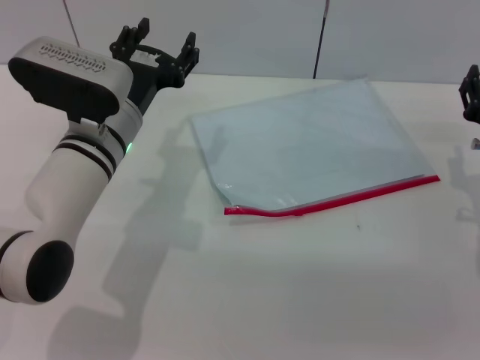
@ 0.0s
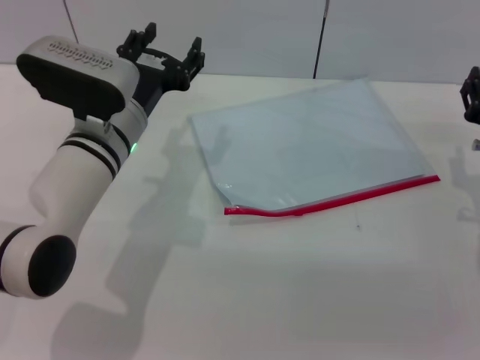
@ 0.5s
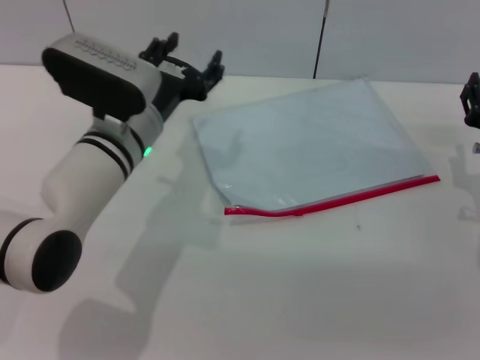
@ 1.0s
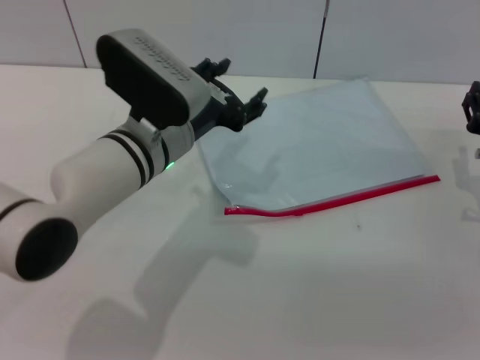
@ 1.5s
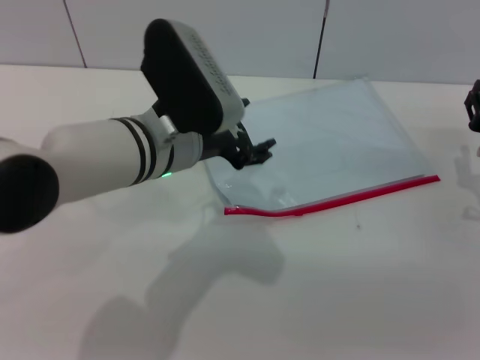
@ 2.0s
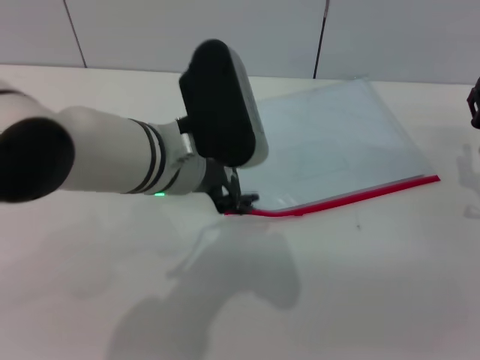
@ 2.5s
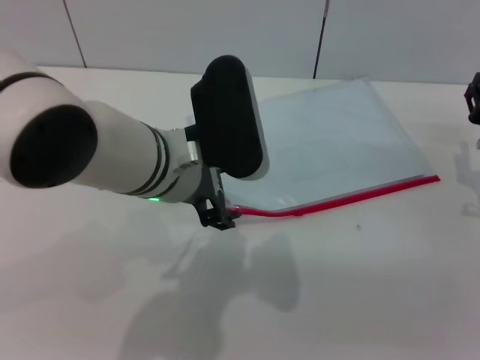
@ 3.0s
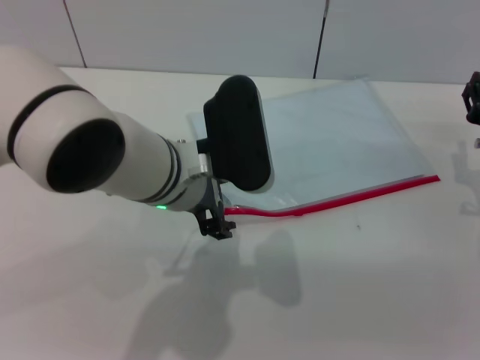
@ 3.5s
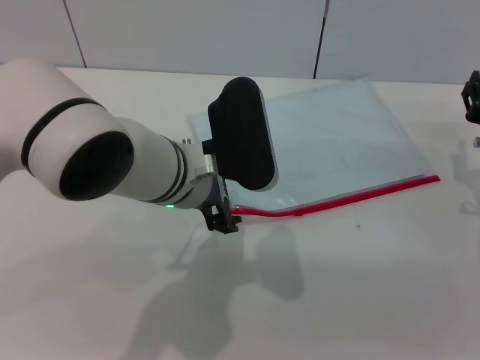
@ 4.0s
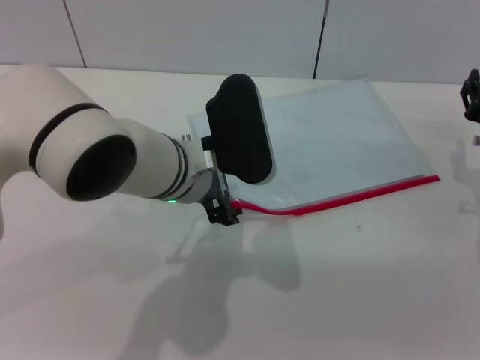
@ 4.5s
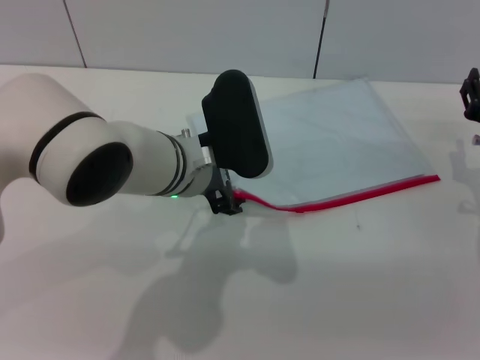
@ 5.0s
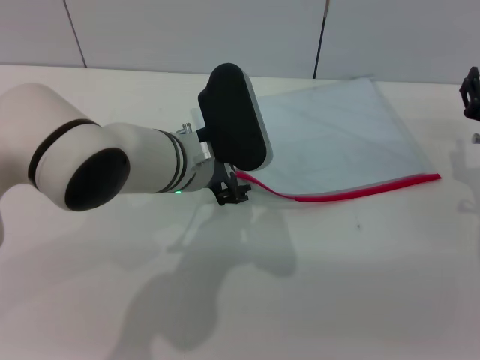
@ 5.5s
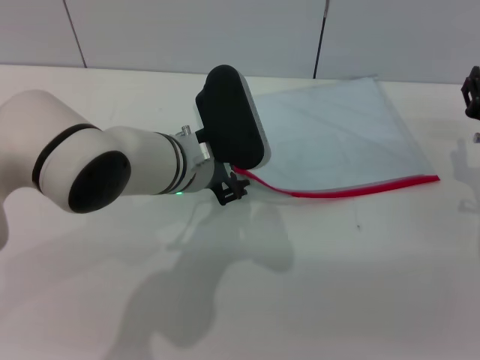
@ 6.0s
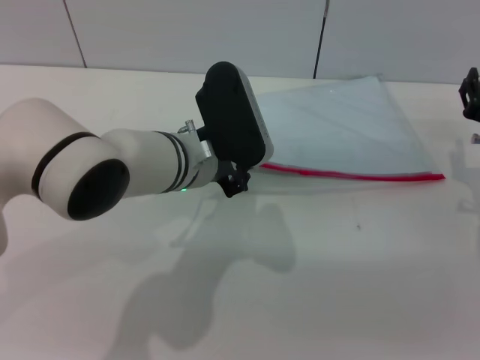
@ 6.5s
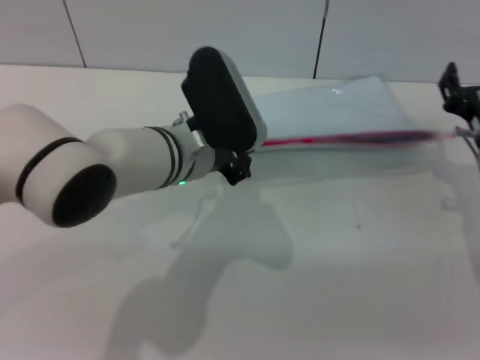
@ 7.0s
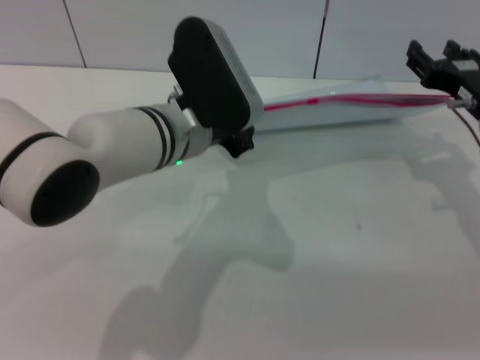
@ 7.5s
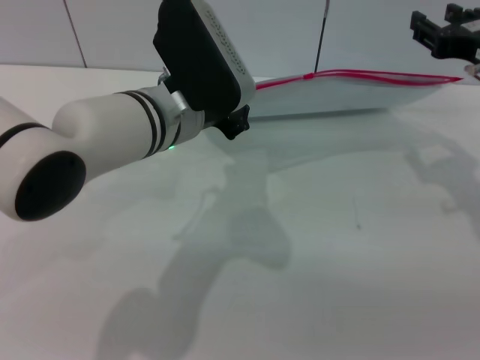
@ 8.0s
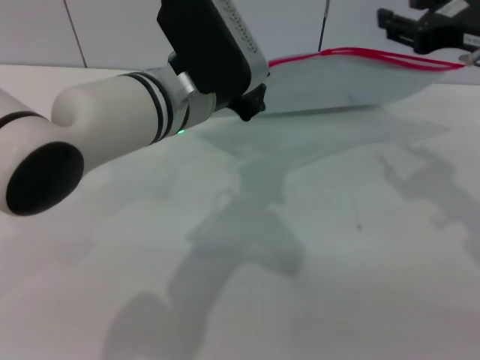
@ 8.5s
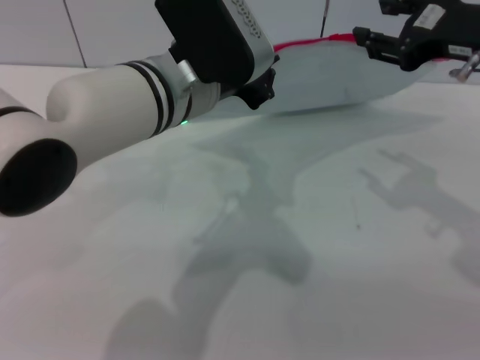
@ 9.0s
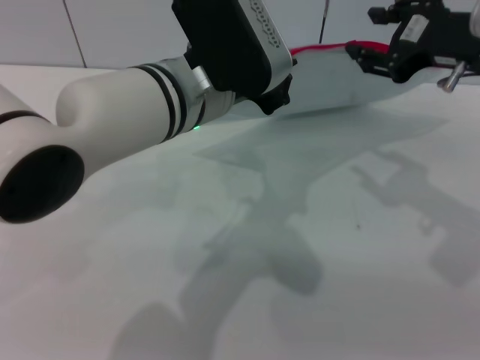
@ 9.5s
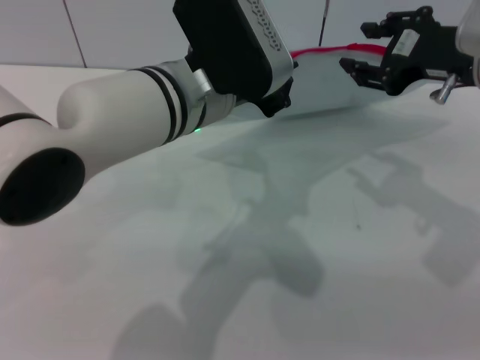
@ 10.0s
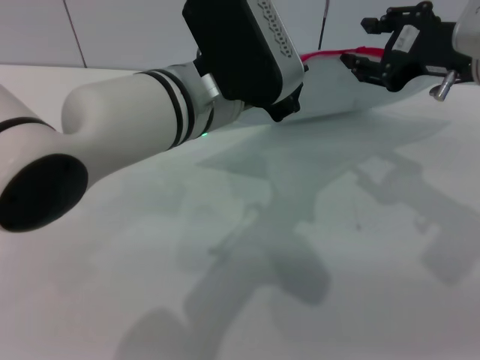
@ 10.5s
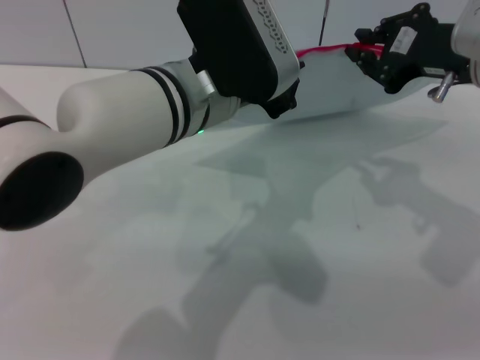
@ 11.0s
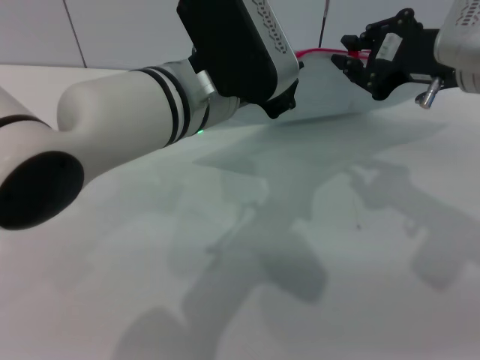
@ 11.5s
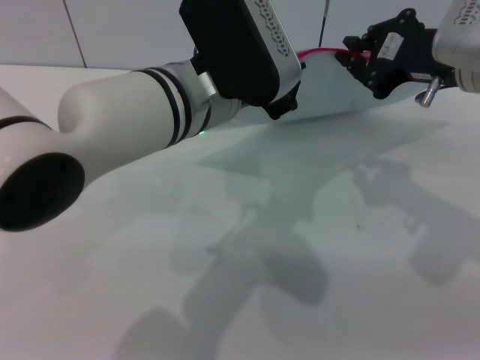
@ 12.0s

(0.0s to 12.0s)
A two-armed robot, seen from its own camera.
Step, 0.0s - 7.0s: Pick up the transparent plastic bag with the left gripper.
0.0s - 2.0s: The left gripper shifts approximately 5 cm to the right.
4.0s - 6.0s: There are only small adjustments of the grippers.
6.0s - 8.0s: The left gripper closes, while the right gripper shifts about 10 cm upward.
8.0s - 10.0s: The left gripper changes place by approximately 5 cm.
10.0s - 12.0s: The right gripper closes its fingers.

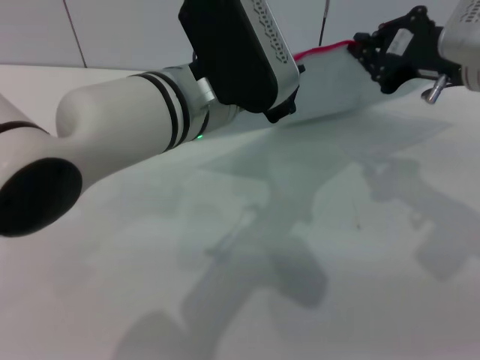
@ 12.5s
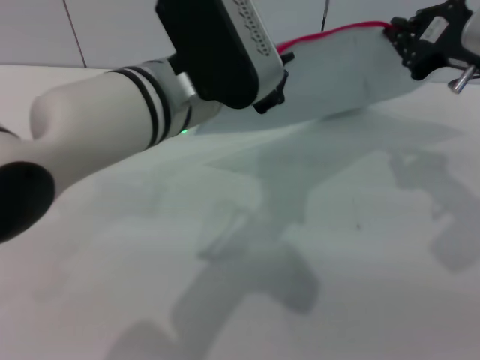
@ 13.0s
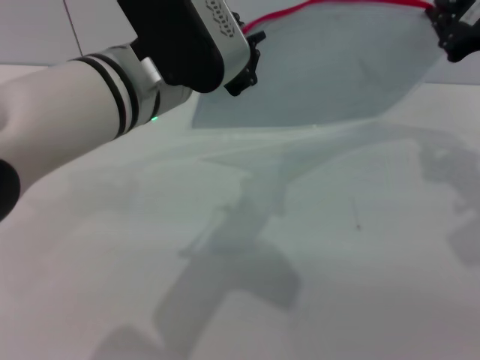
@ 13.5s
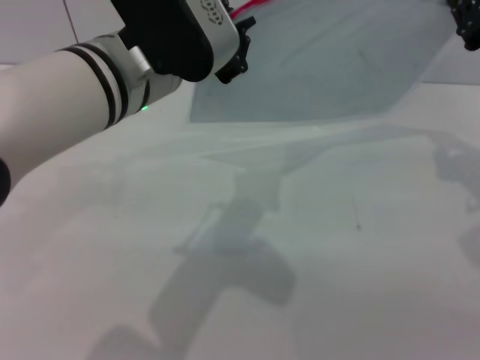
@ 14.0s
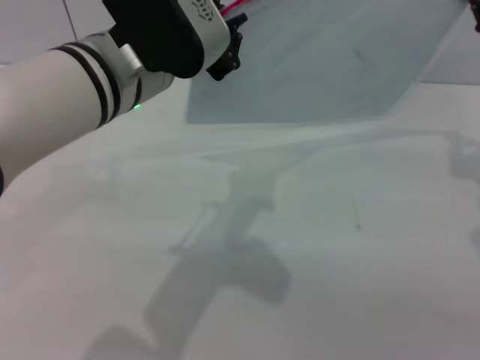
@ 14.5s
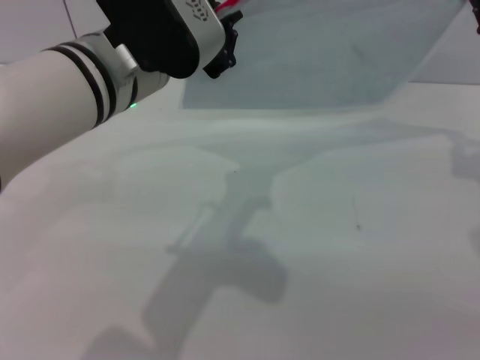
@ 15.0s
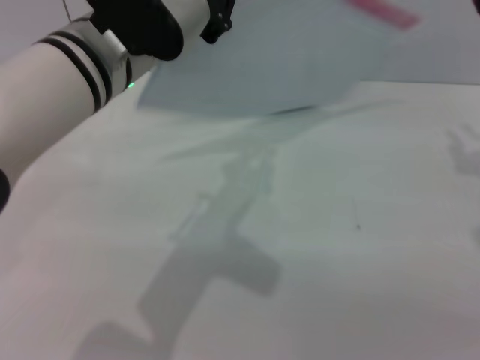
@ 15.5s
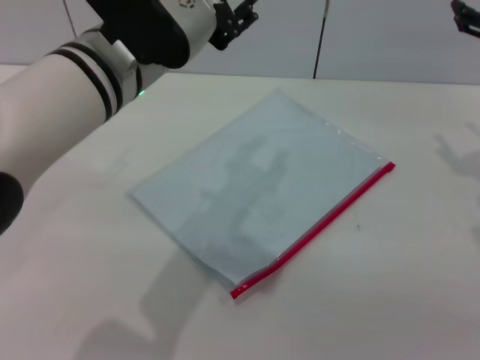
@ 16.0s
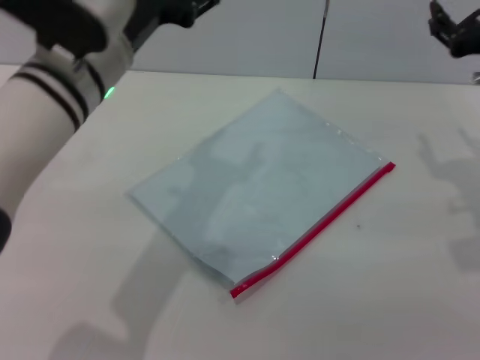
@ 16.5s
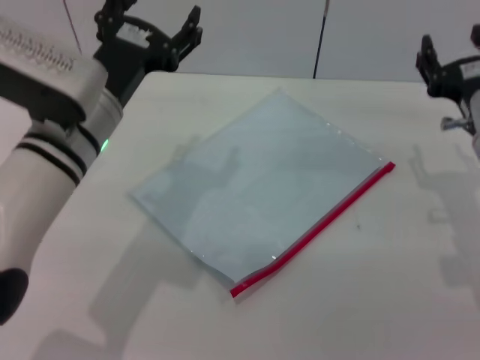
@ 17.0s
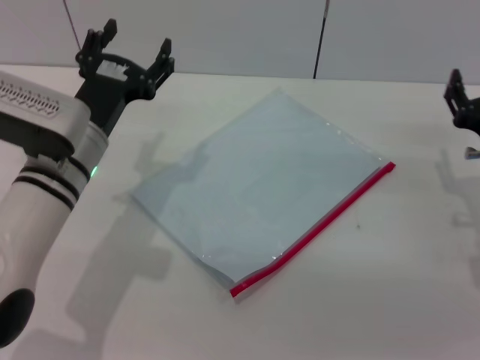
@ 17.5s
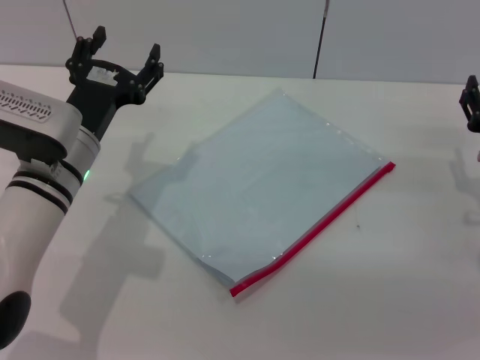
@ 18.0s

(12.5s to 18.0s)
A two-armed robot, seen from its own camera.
Step, 12.5s - 15.5s: Pulling up the zipper on the transparent plastic bag with the right gripper to close it.
Step, 16.5s - 17.0s: Place the transparent plastic bag.
12.5s - 14.5s: The right gripper moves to the right, roughly 5 cm; the left gripper moves some 5 cm.
14.5s - 16.0s: The right gripper opens its fingers, while the left gripper opens.
16.0s - 18.0s: The left gripper goes some 15 cm downward and to the left, and opens its fingers. The right gripper moves downward, approximately 15 cm.

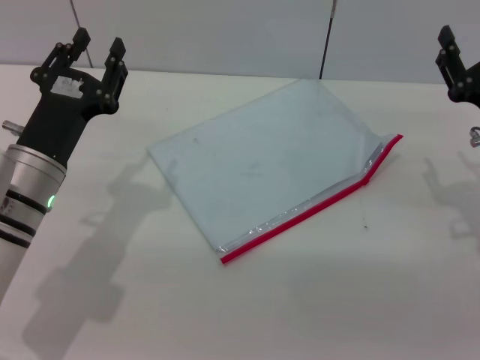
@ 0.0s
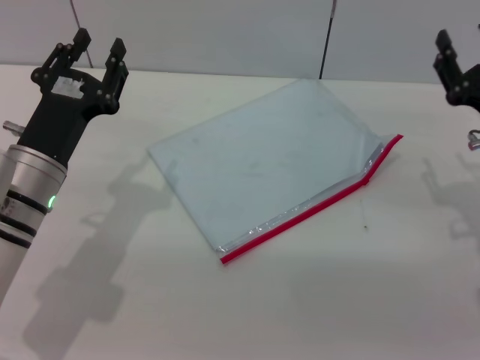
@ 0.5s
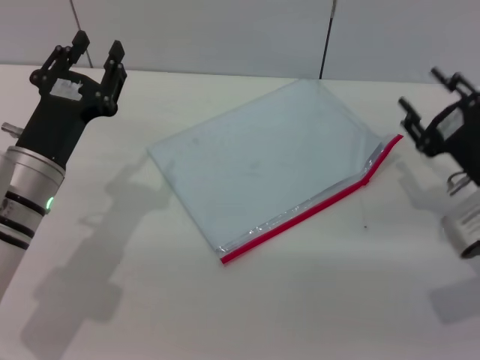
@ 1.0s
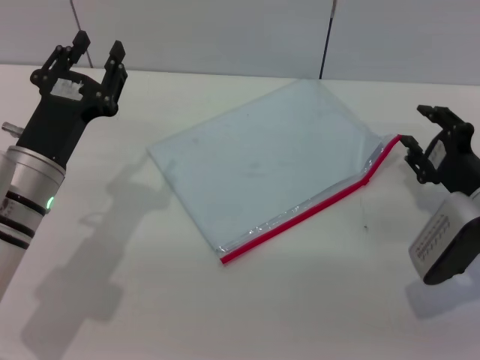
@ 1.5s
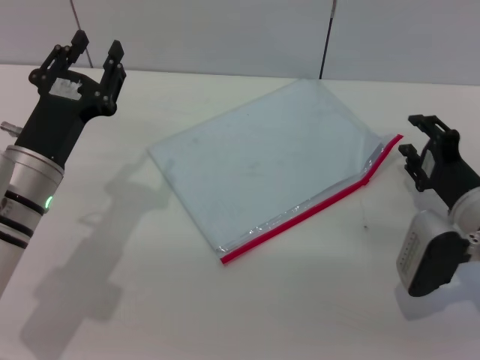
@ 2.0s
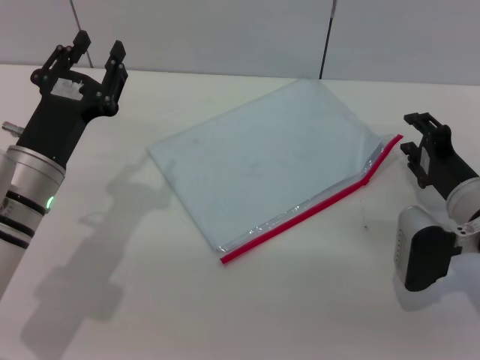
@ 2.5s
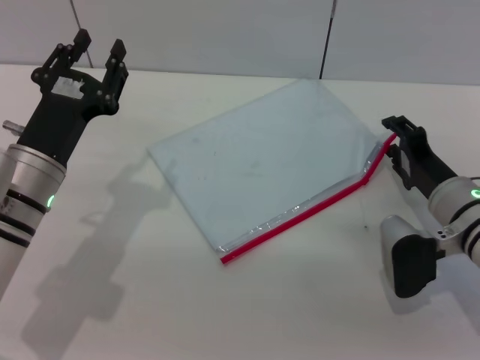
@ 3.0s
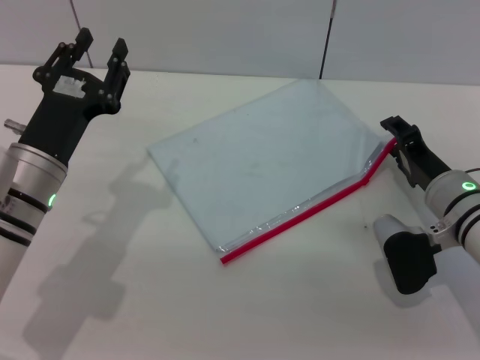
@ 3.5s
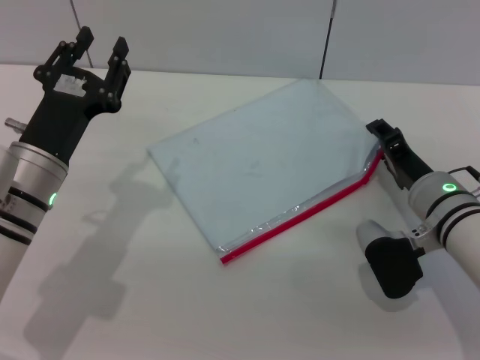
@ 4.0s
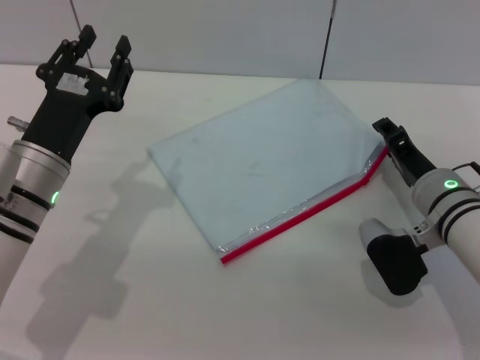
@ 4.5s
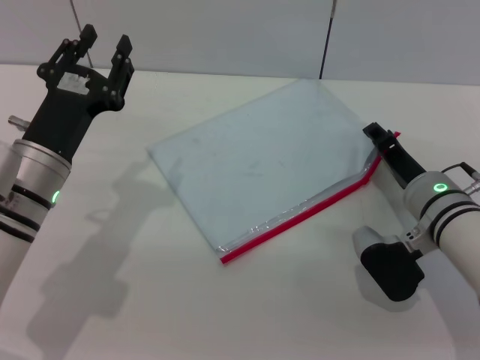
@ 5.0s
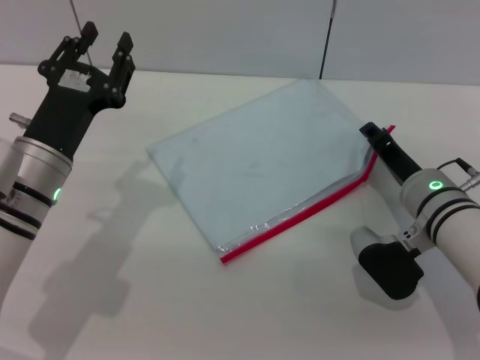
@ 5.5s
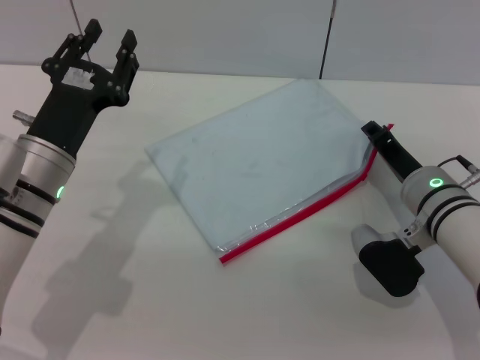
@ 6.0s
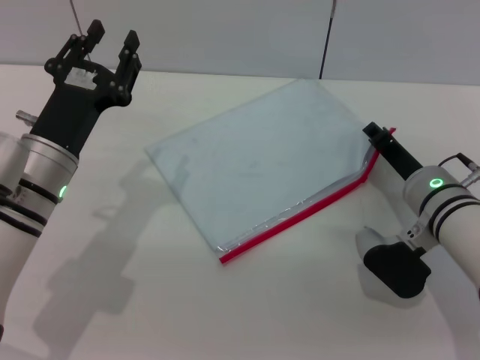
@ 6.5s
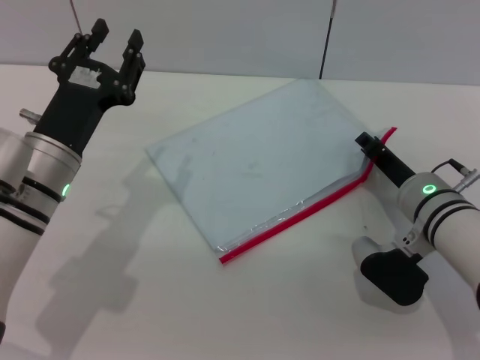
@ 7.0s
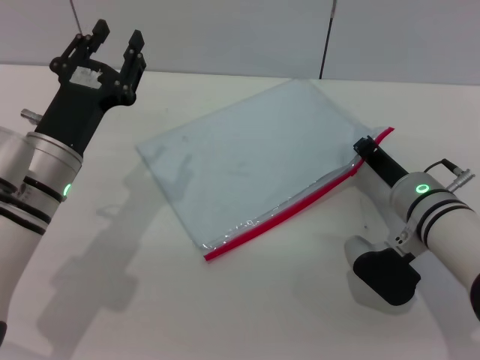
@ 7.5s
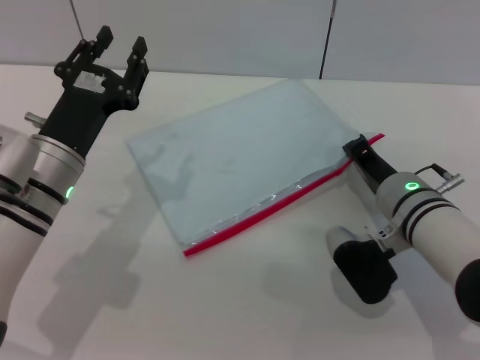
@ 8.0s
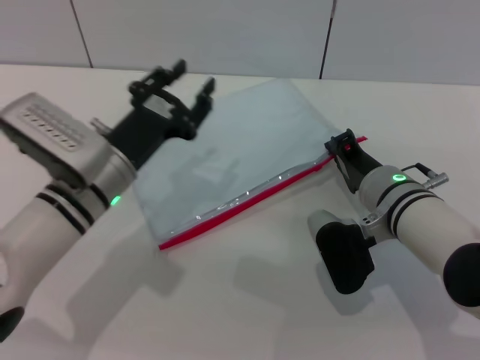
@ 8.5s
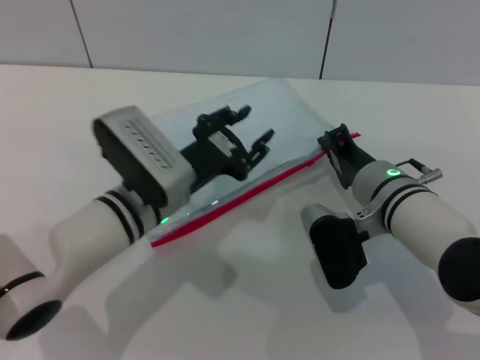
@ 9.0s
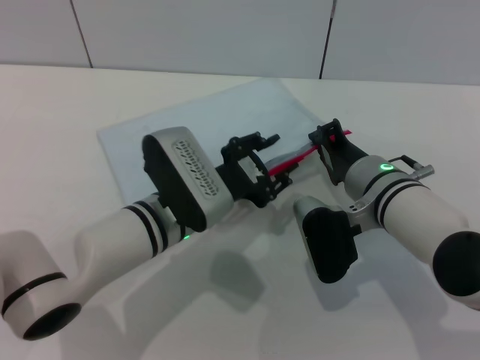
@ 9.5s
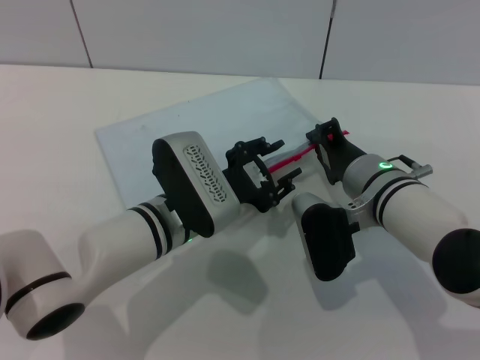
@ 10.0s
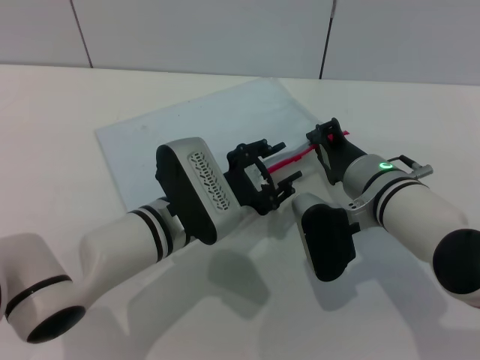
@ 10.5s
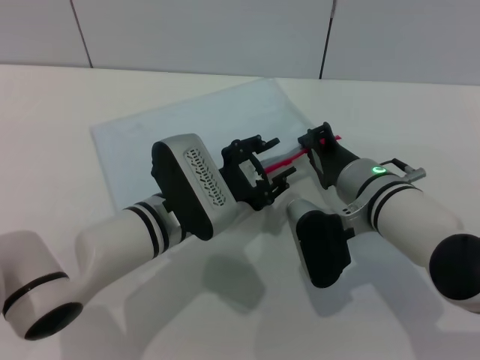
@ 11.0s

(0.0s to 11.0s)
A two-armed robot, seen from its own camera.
Step, 0.0s - 9.0s: Pick up the transparent plastic bag with the right gripper.
0.0s - 2.0s: The right gripper shifts roughly 5 cm downward.
3.5s - 5.5s: The grippers move only a little.
5.5s - 7.5s: The right gripper closes up.
7.5s - 9.0s: The left gripper moves to the right, about 10 cm.
